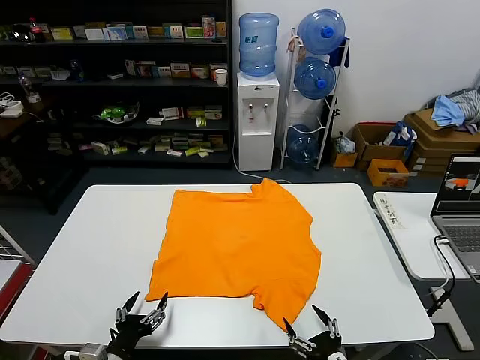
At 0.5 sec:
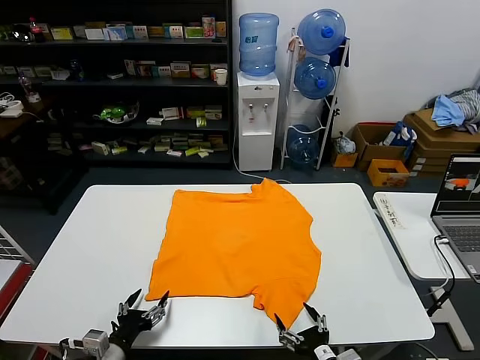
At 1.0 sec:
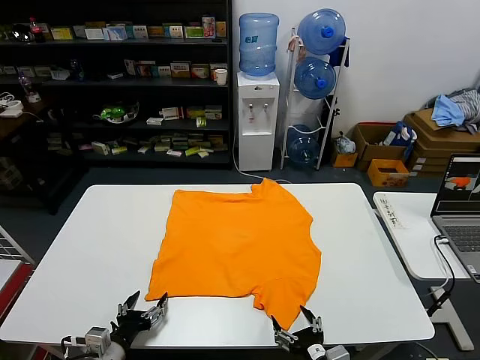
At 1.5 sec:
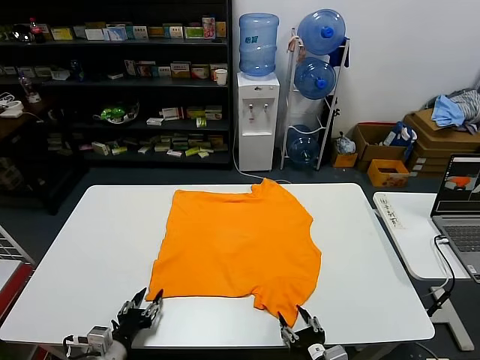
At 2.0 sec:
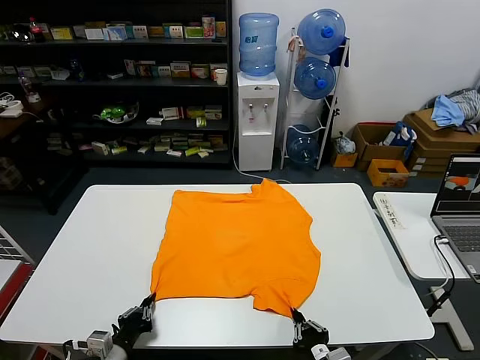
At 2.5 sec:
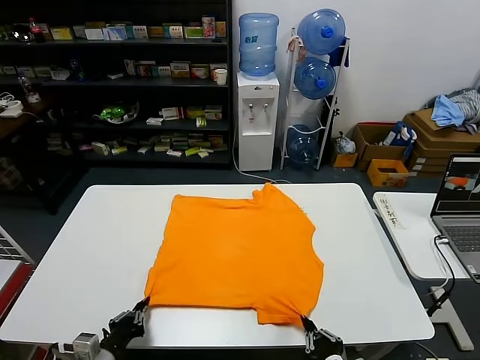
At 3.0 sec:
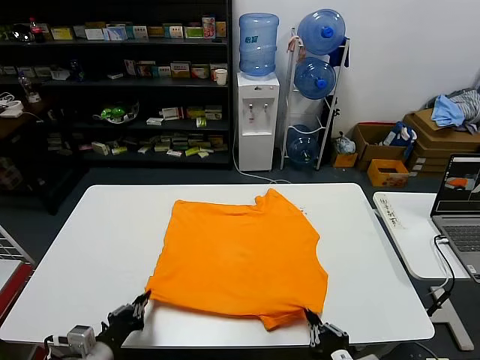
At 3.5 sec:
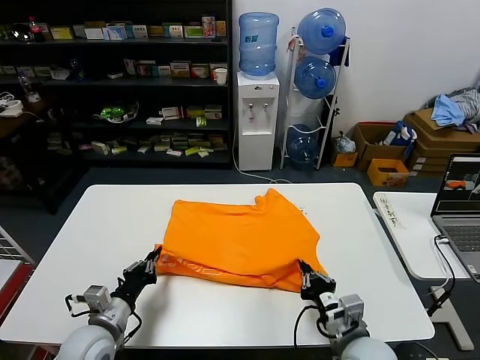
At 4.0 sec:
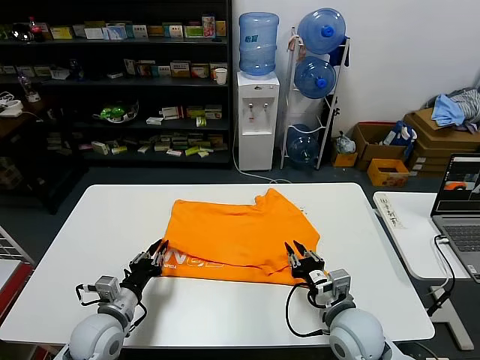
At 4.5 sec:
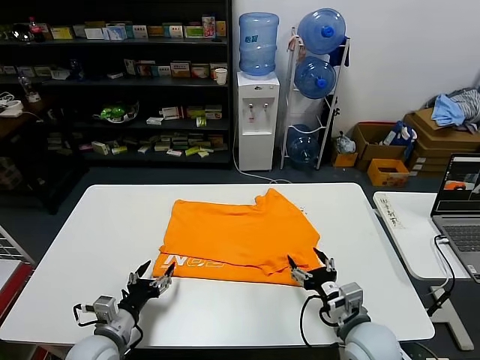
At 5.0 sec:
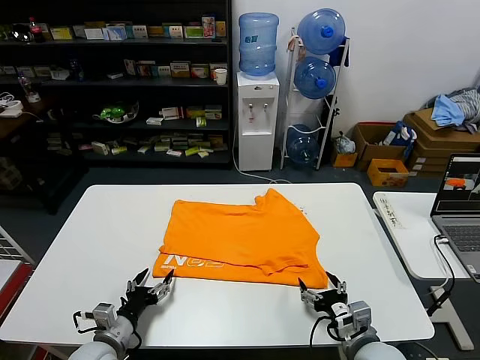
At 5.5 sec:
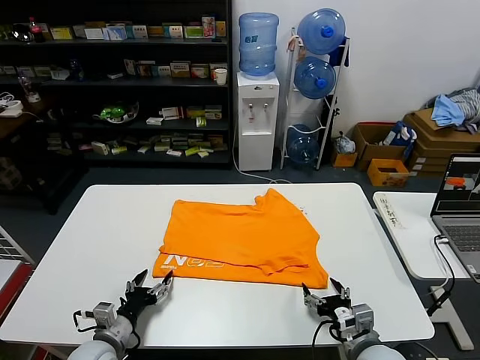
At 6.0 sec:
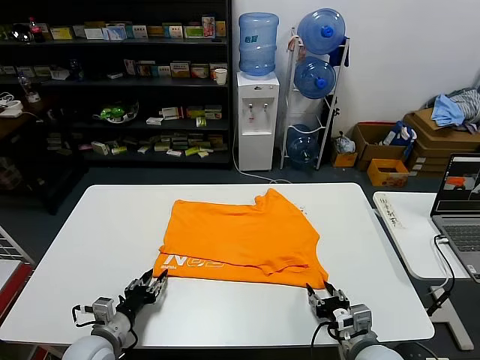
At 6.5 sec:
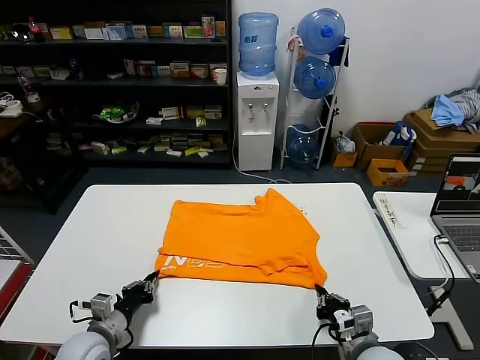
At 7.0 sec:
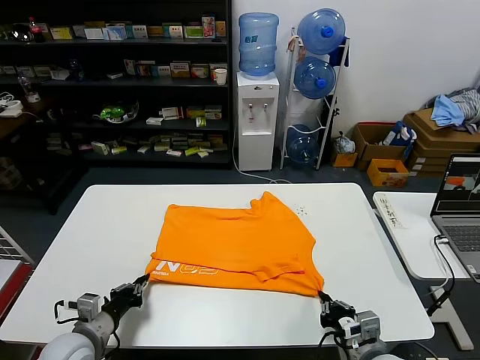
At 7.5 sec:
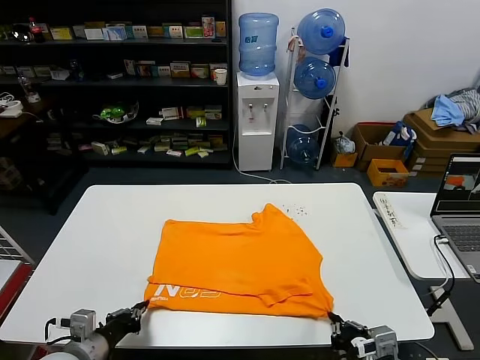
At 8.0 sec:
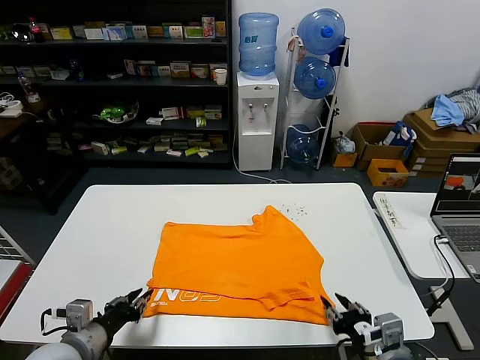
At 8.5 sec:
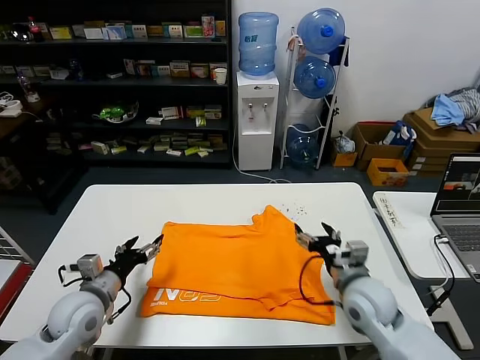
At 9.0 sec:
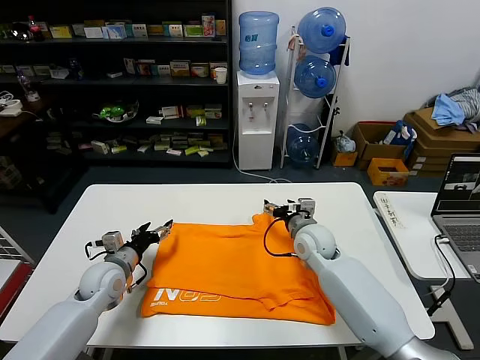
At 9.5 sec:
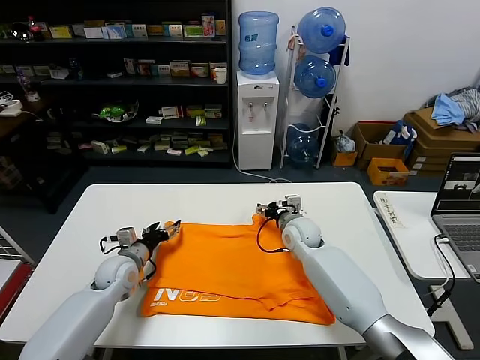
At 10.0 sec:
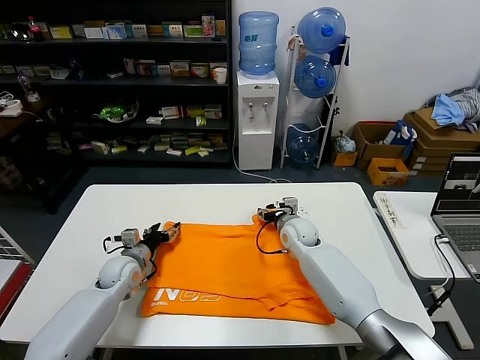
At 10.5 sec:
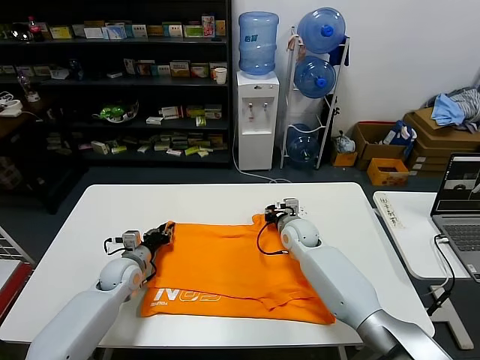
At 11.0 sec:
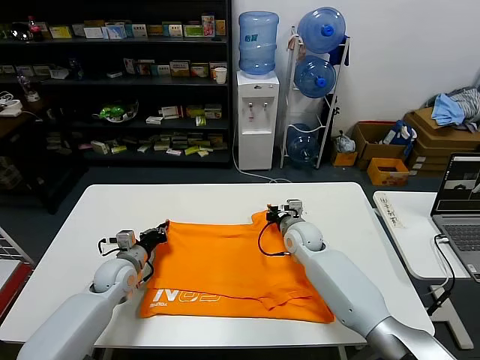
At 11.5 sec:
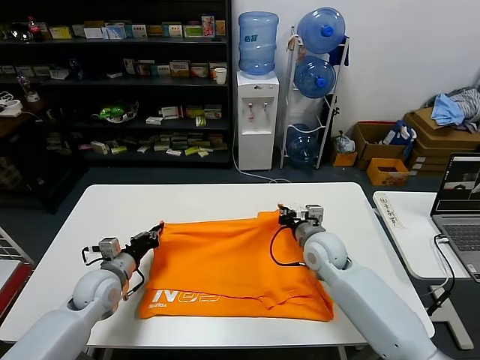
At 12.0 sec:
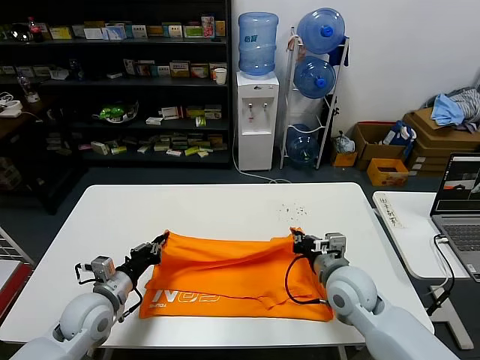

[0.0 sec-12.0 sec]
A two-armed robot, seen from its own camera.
Task of the whole recording: fold and organize the clothes.
Step, 0.0 sec to 2.0 sec: use both grippers simultaneously to clamp the lower edge of the clothing fabric.
Step, 2.5 sec to 4.0 sec: use both grippers to drag the lower edge of the fabric forward and fold it over the upper edge.
Step, 4.5 sec to 7.5 sec: Drag the clothes downward with both gripper.
Step, 8.0 sec to 10.5 sec: use both grippers simultaneously to clamp the upper edge of the clothing fabric.
2.0 sec to 4.0 sec: Both grippers move forward, approximately 10 cm. The right gripper opens; the left gripper opens.
4.0 sec to 6.0 sec: The right gripper is displaced backward by approximately 5 cm, and opens, then closes once more. Meanwhile the left gripper ends up some 5 cm from where it was, and opens, then closes once more.
6.0 sec to 8.0 sec: Both grippers move upward, some 10 cm. The right gripper closes, then reopens. The left gripper closes and opens again.
8.0 sec to 10.0 sec: The right gripper heads forward, covering approximately 35 cm. The left gripper shifts roughly 25 cm forward and downward, and opens up.
10.0 sec to 12.0 sec: The left gripper travels backward and upward by about 15 cm, and closes up. Meanwhile the right gripper shifts some 20 cm backward, and closes.

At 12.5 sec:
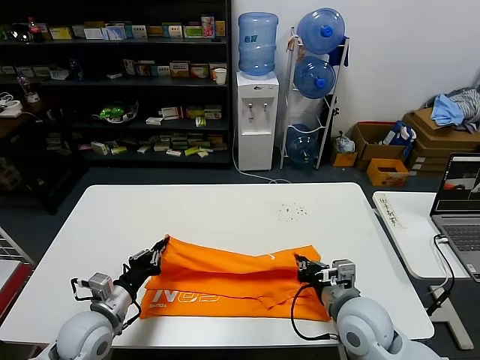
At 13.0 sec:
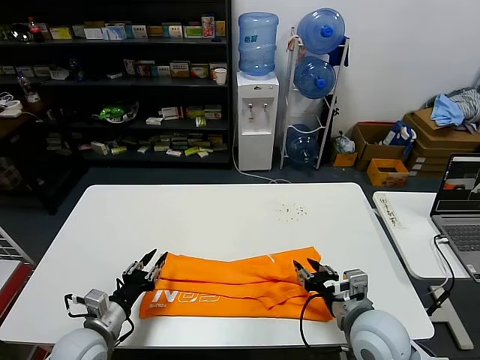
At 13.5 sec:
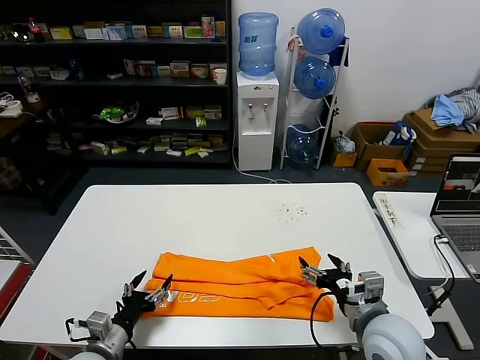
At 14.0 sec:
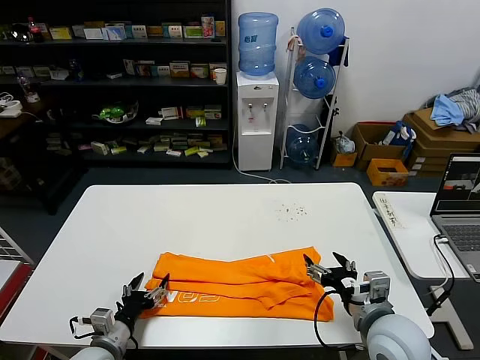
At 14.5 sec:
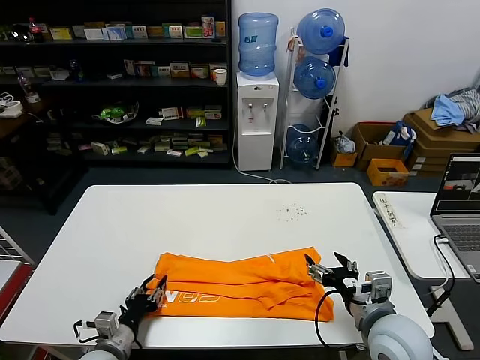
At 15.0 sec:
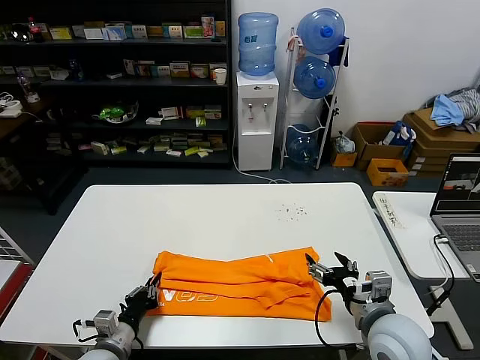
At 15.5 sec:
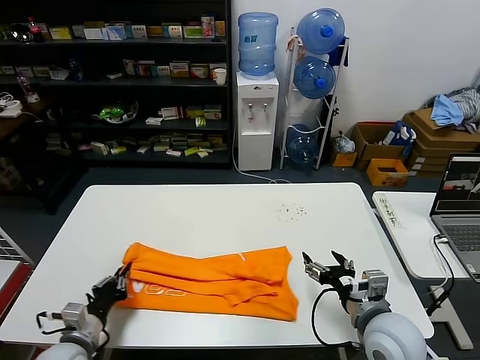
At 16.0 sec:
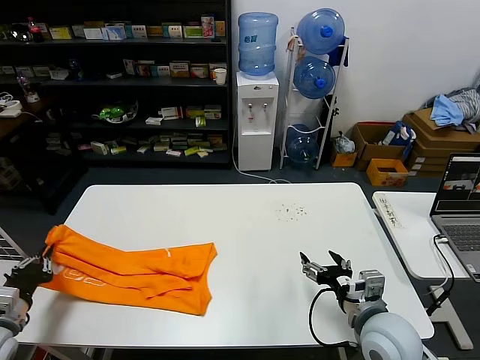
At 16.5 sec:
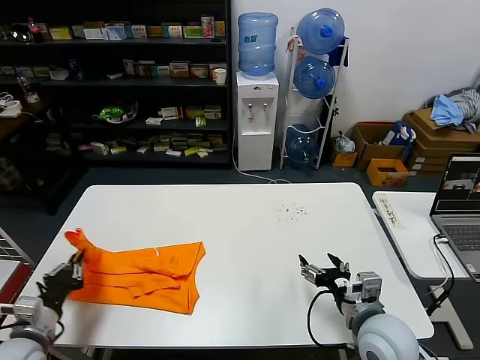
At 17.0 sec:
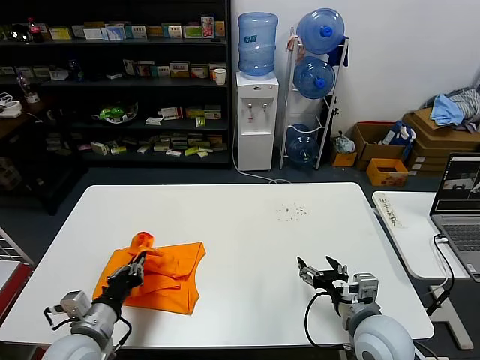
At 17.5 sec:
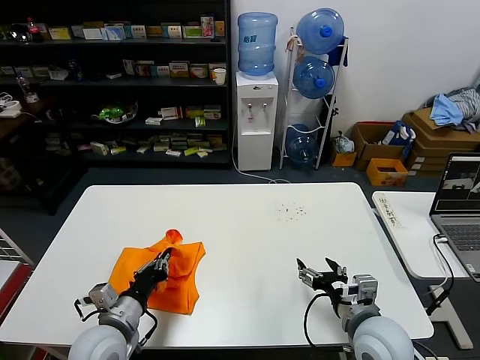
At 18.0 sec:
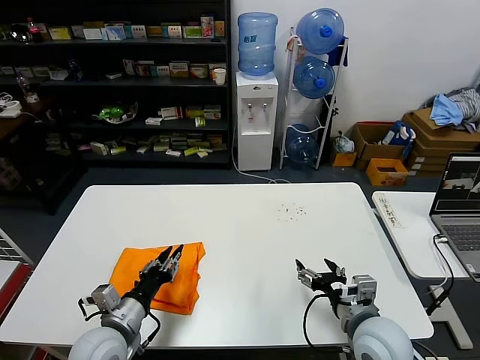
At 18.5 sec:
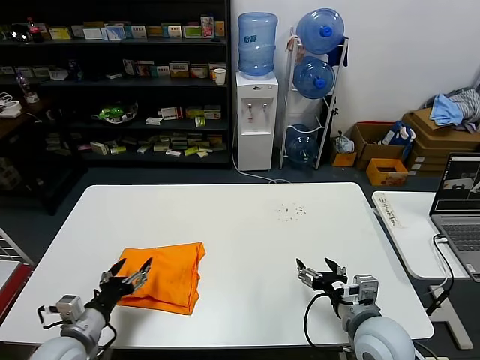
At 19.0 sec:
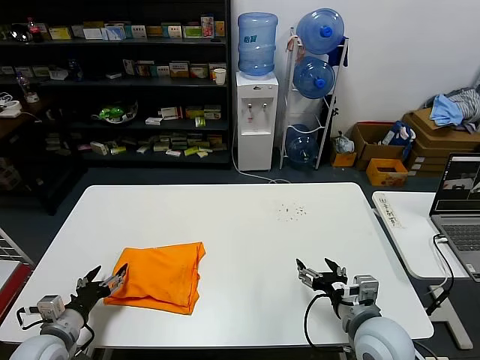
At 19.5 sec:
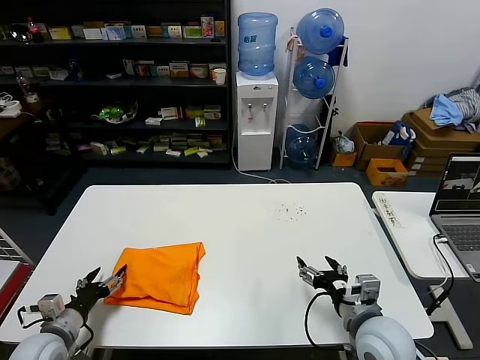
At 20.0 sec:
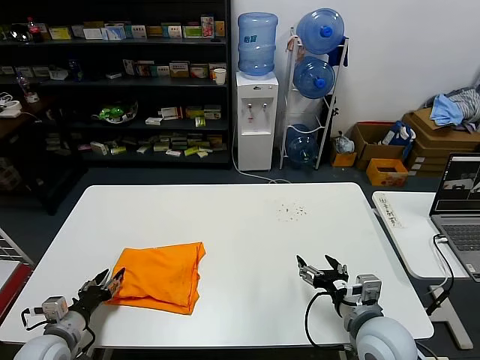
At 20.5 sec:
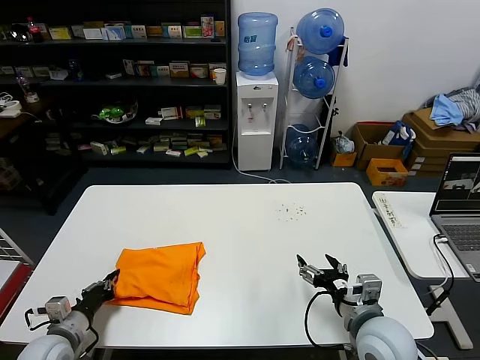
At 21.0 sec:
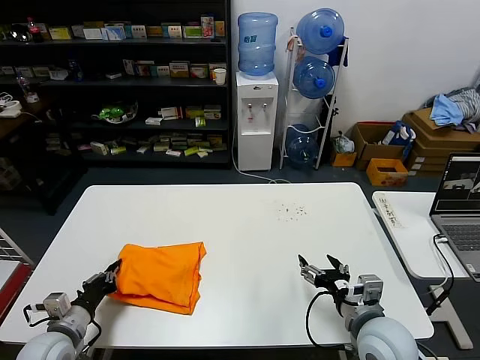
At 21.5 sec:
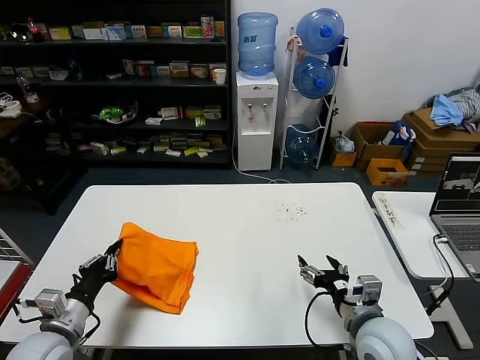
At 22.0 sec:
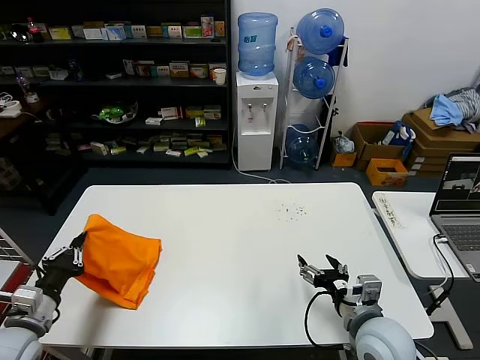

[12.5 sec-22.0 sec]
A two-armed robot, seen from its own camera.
Task of the whole recording: fold and organize the clothes.
Step, 13.5 sec to 15.0 sec: use the left gripper to clamp the left edge of the fabric.
Step, 15.5 sec to 18.0 sec: use the left gripper to drag the left edge of the fabric to the left and folds it over the right edge.
12.5 sec to 14.5 sec: The left gripper goes approximately 10 cm downward and backward, and opens. Meanwhile the right gripper ends up some 5 cm from where it was, and opens.
14.5 sec to 16.5 sec: The left gripper is displaced to the left and upward by roughly 15 cm, and closes up.
16.5 sec to 18.0 sec: The left gripper heads to the right, covering some 15 cm, and opens.
18.0 sec to 20.0 sec: The left gripper heads to the left and downward, covering about 15 cm.
20.0 sec to 22.0 sec: The left gripper travels upward by roughly 10 cm, and closes its fingers.

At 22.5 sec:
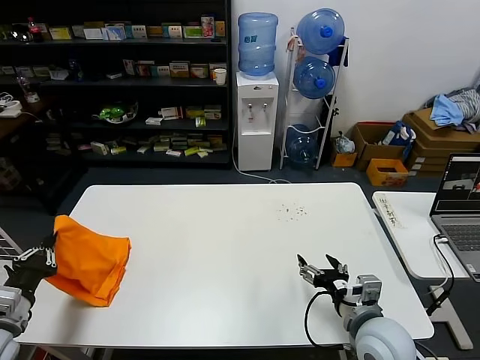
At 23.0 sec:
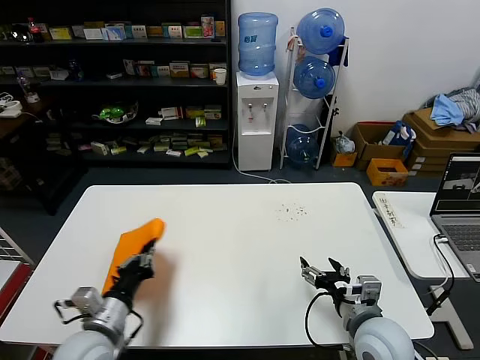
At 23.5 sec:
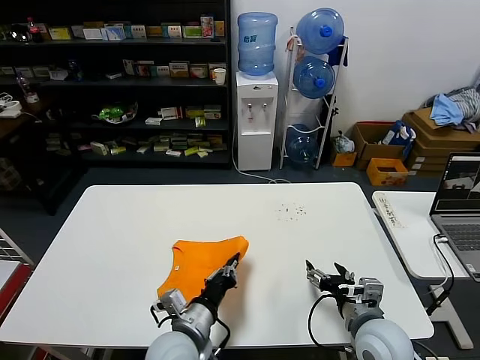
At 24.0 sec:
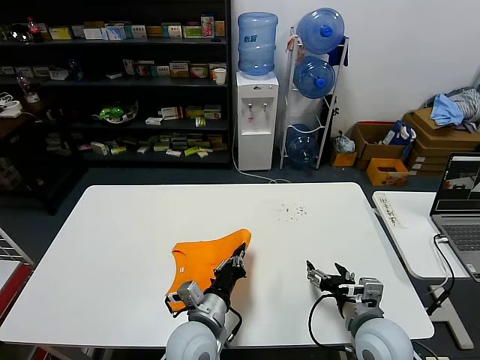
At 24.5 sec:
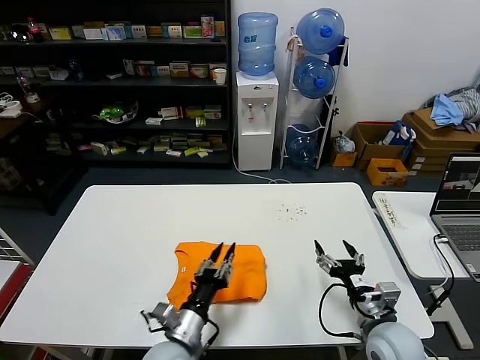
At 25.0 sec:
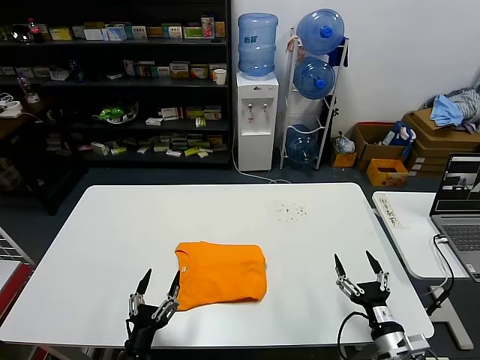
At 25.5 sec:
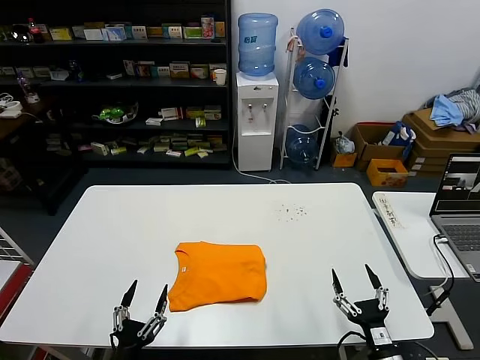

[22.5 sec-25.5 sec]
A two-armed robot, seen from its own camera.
Task of the whole recording: fold and organize the clothes.
22.5 sec to 24.0 sec: The left gripper heads to the right, covering about 35 cm.
24.0 sec to 25.5 sec: The right gripper moves backward and downward, roughly 15 cm; the left gripper is displaced to the left, backward and downward by approximately 25 cm, and opens.
